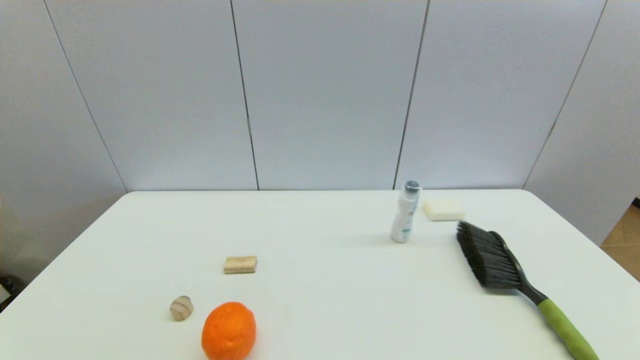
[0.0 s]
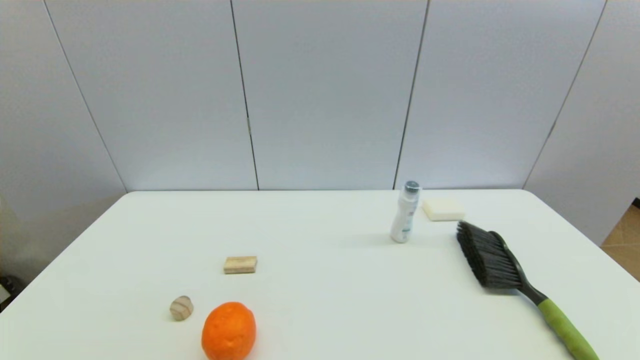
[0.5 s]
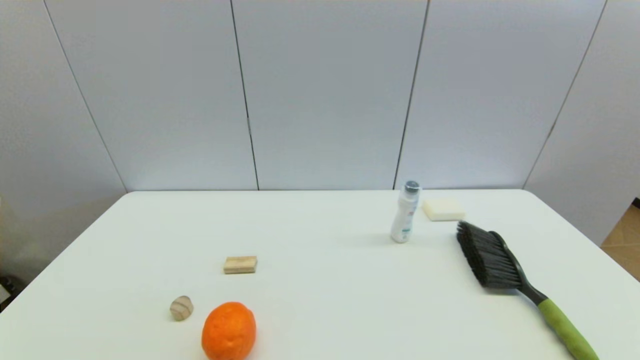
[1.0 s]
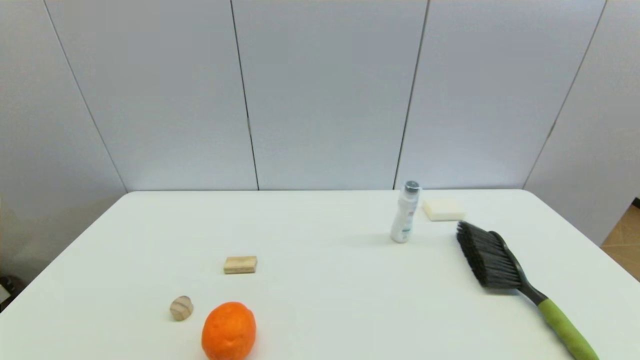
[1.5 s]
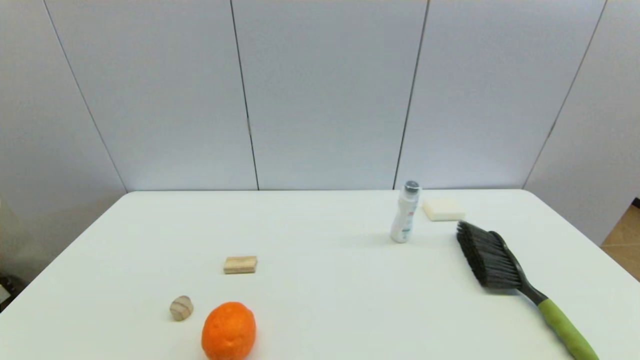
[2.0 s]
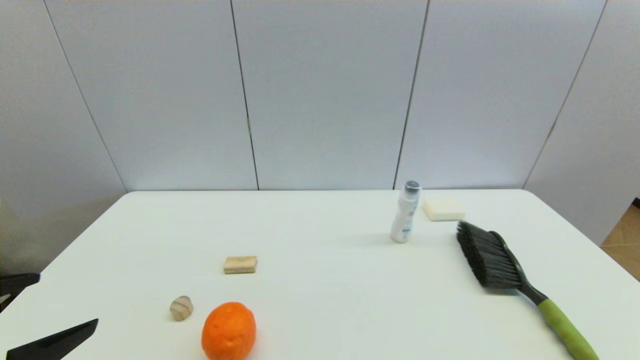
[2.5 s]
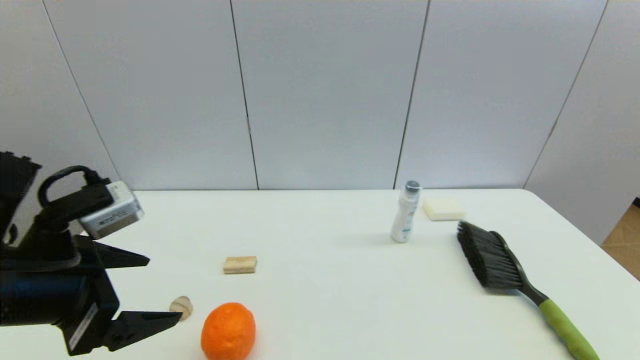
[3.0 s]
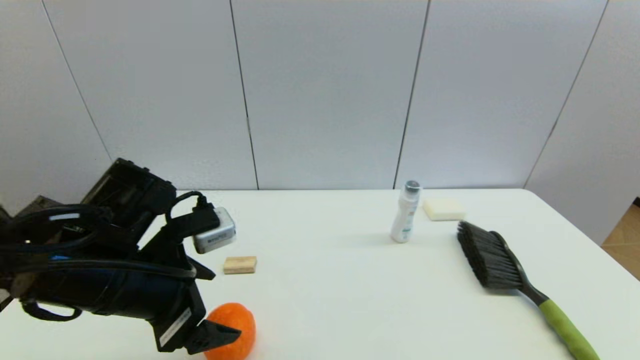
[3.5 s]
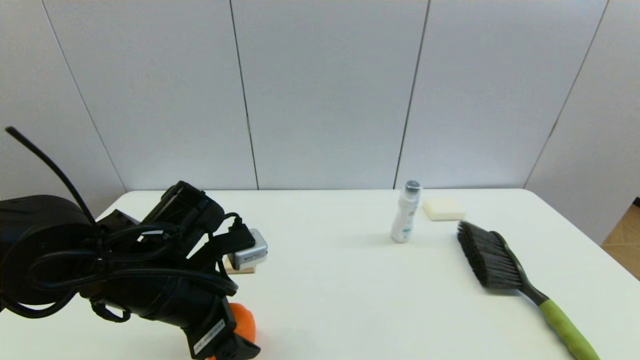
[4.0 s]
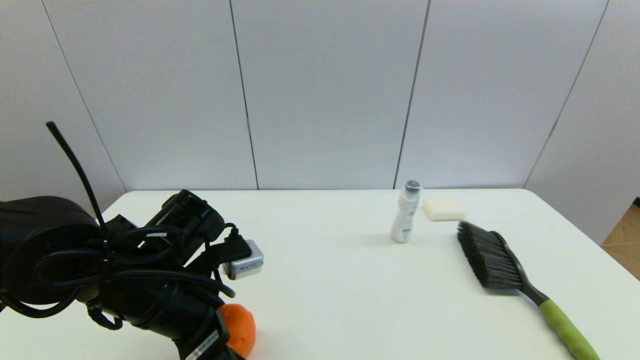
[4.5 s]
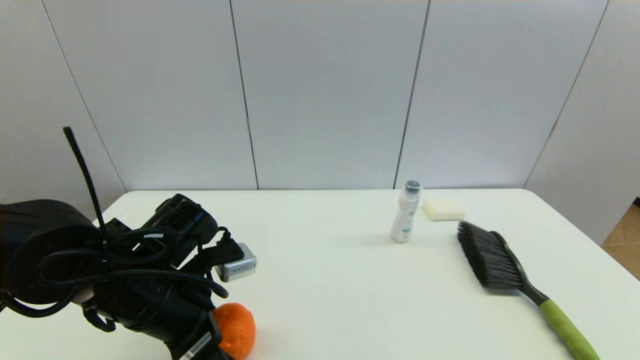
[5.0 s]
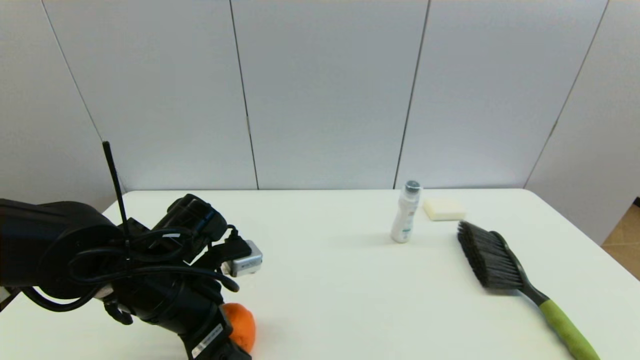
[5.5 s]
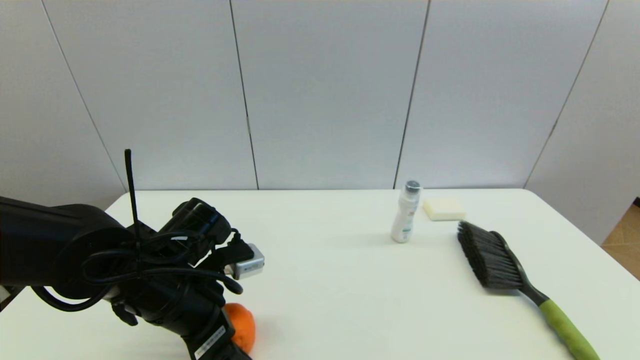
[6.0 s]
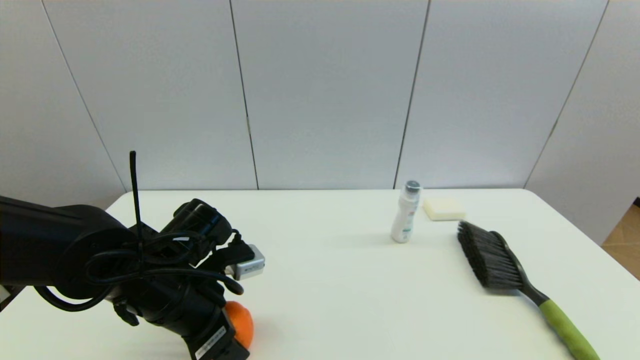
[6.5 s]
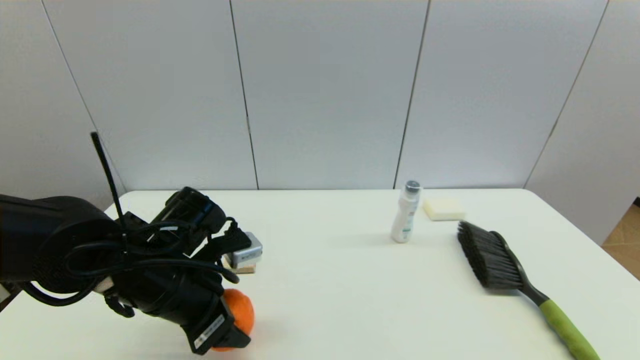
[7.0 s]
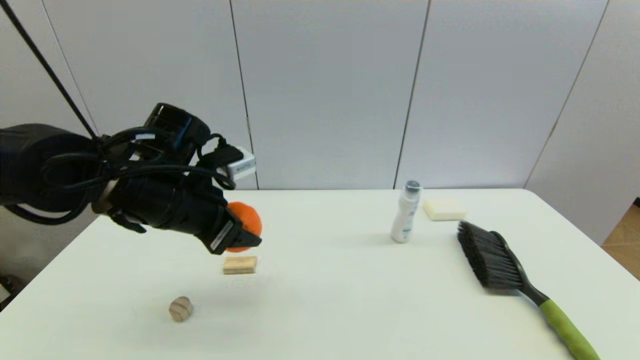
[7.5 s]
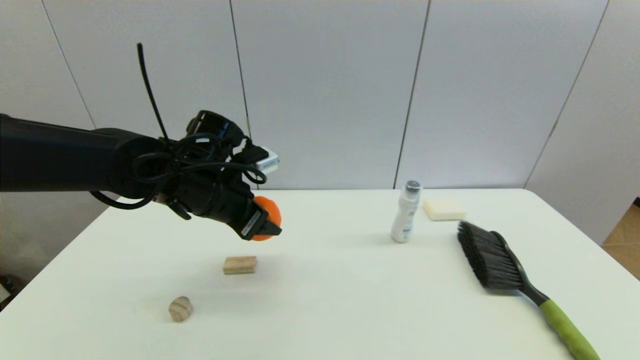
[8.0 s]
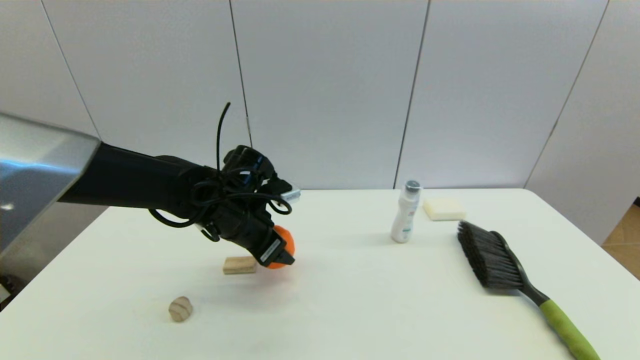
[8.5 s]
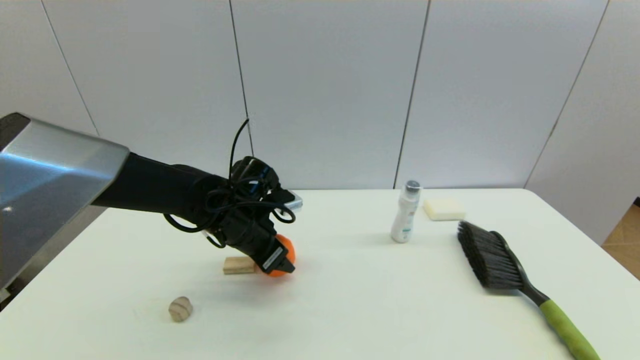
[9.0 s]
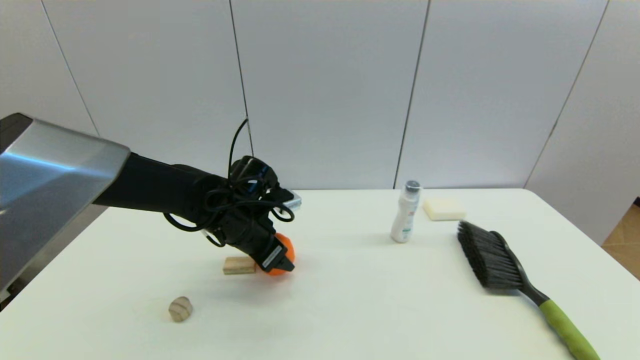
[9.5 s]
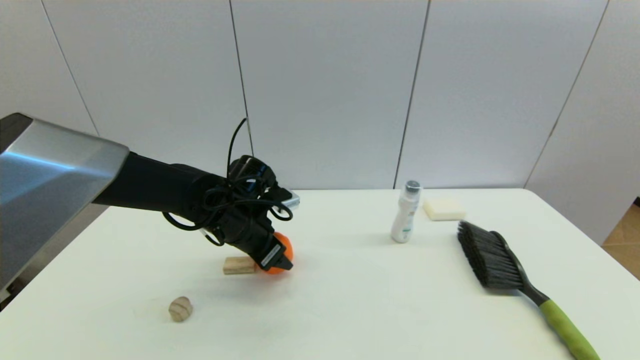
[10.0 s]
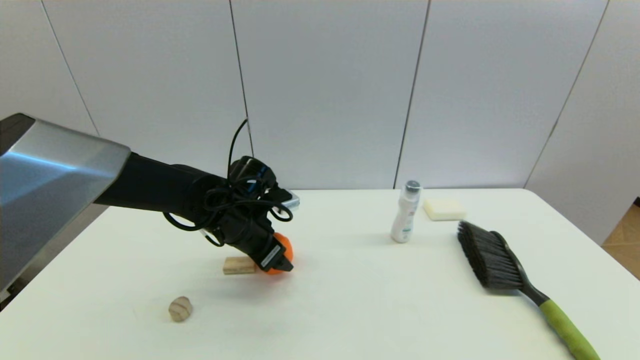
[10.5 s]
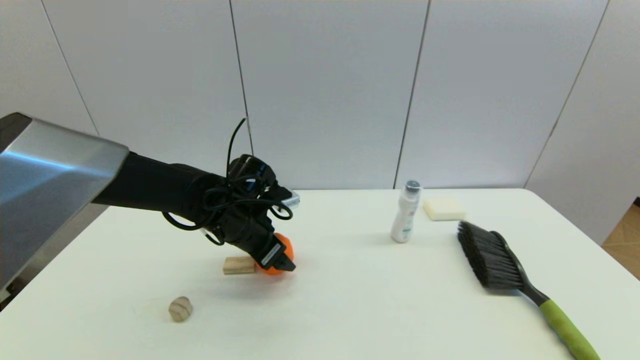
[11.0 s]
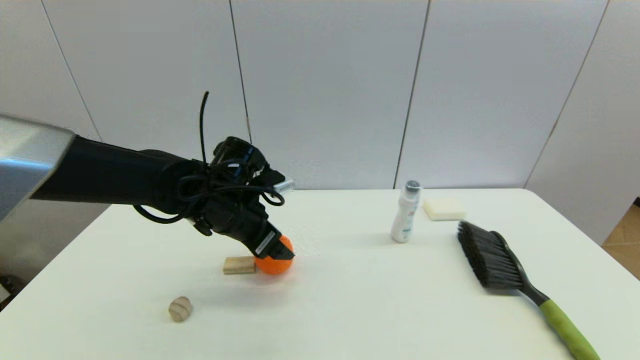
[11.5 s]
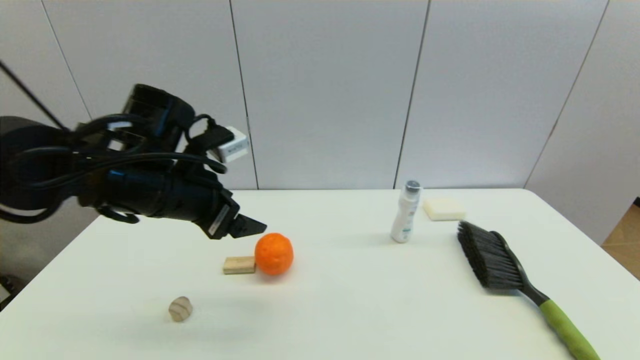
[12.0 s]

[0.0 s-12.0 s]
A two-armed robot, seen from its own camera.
Step, 2.5 to 6.5 s: Grasp the orange with left gripper.
Step, 7.0 to 11.0 s: Place the orange on the table with left gripper.
2.0 to 4.0 s: The left gripper shifts approximately 25 cm forward and to the right.
4.0 to 6.0 s: The grippers stay close to where they were, moving slightly.
6.0 to 8.0 s: The left gripper heads forward and upward, covering some 10 cm, and closes its fingers.
8.0 to 10.0 s: The left gripper is displaced downward by some 5 cm.
10.0 to 12.0 s: The left gripper heads upward, backward and to the left, covering approximately 15 cm, and opens up.

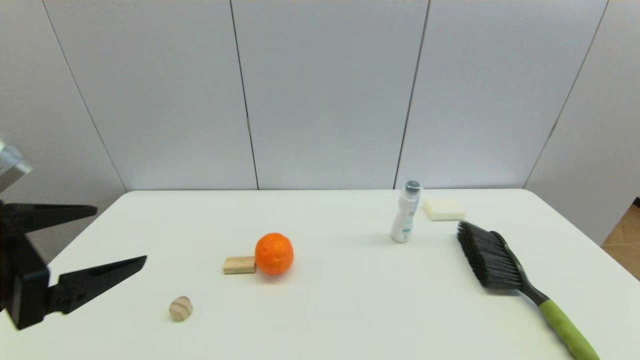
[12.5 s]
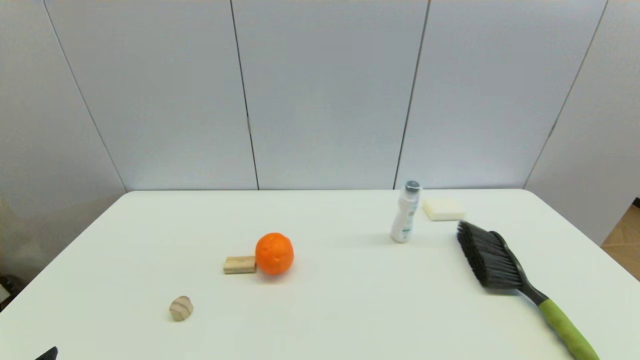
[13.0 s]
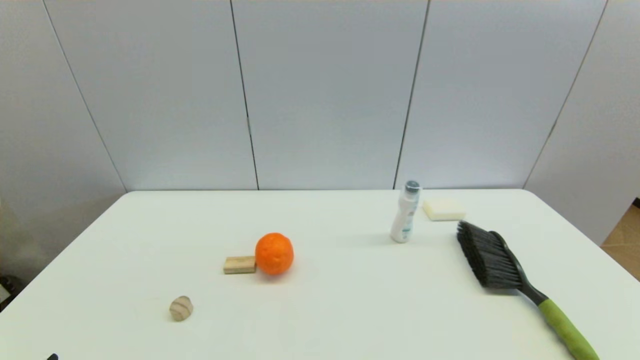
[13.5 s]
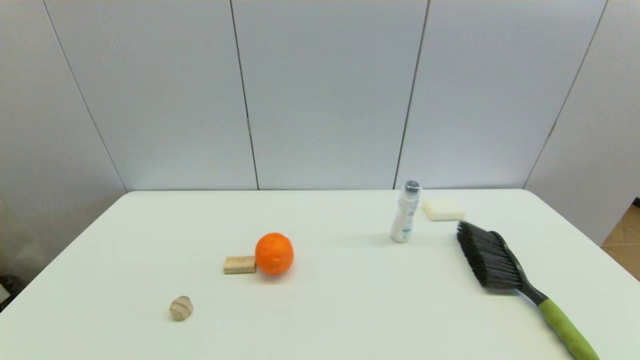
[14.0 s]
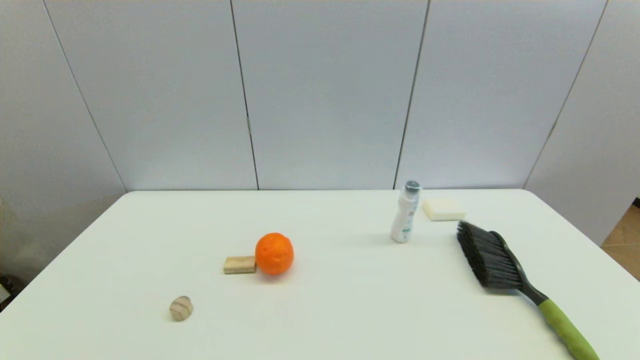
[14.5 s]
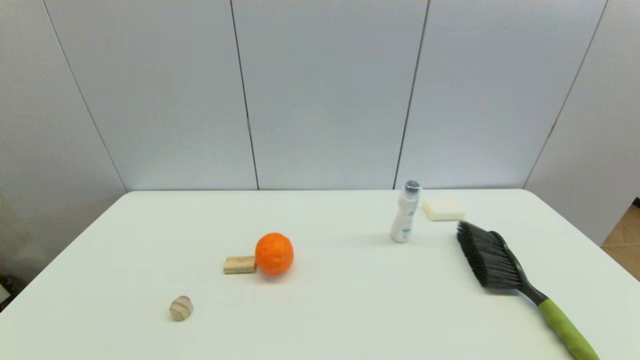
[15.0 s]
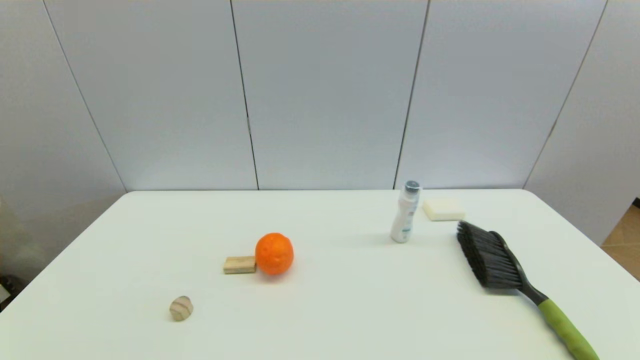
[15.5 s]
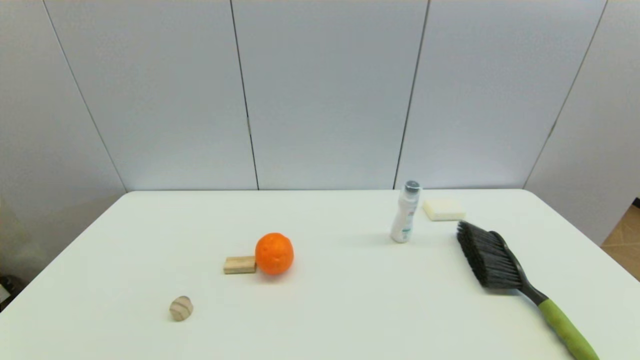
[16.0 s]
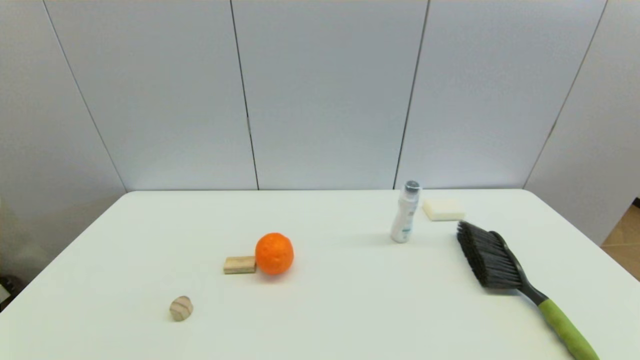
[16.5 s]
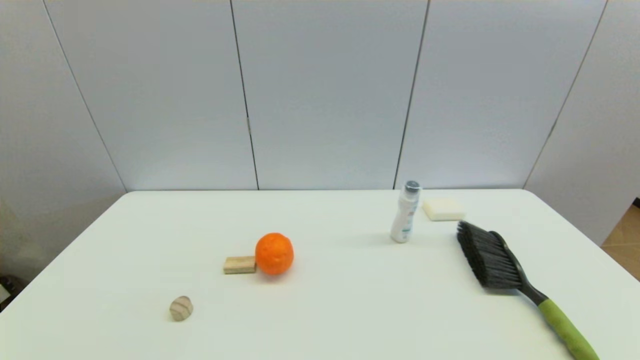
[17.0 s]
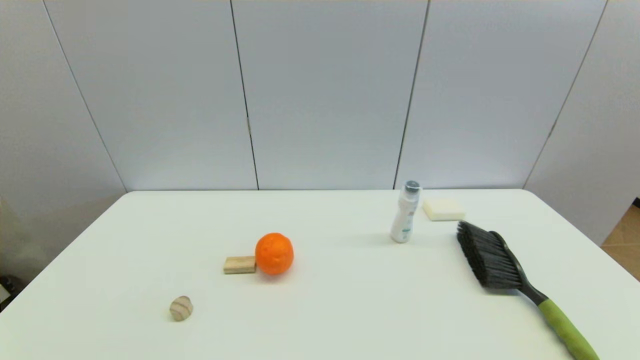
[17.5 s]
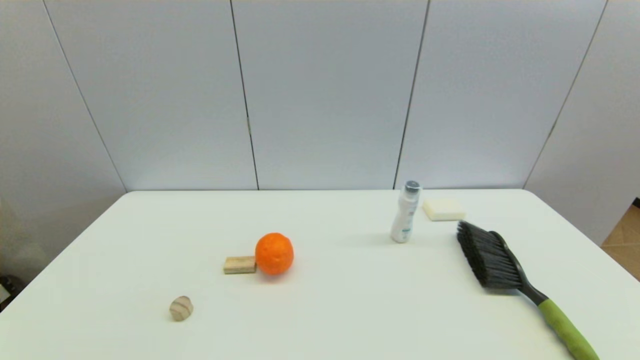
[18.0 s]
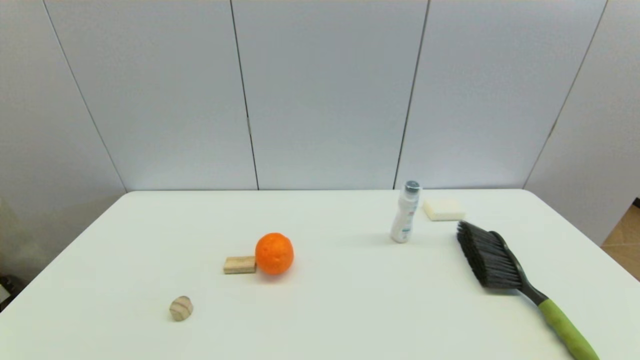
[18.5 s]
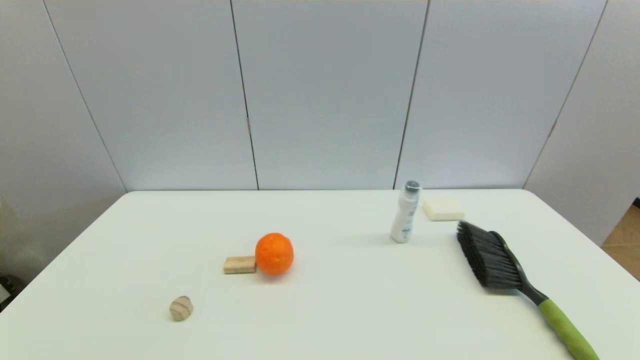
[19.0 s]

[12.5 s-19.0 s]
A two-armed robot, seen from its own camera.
12.5 to 14.5 s: The left gripper is displaced downward and backward by roughly 20 cm.
17.0 to 19.0 s: Both grippers stay put.

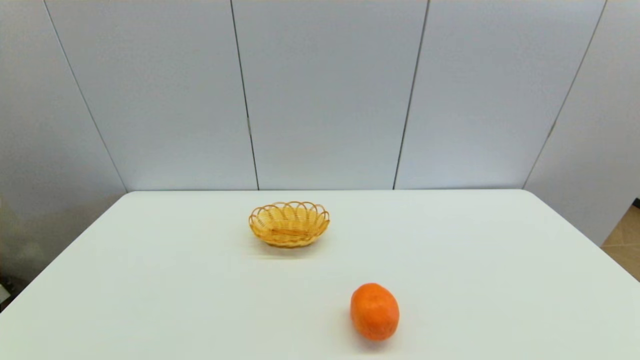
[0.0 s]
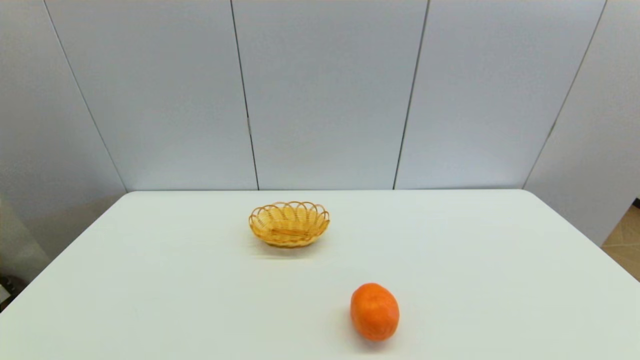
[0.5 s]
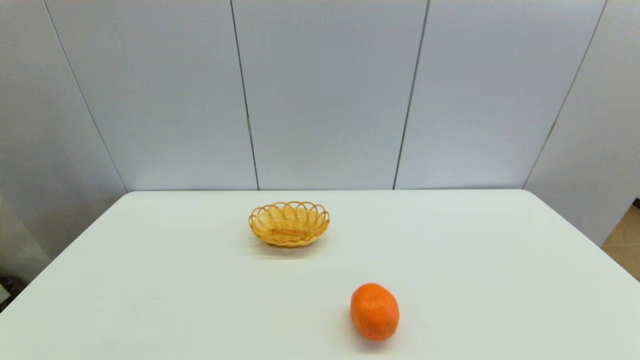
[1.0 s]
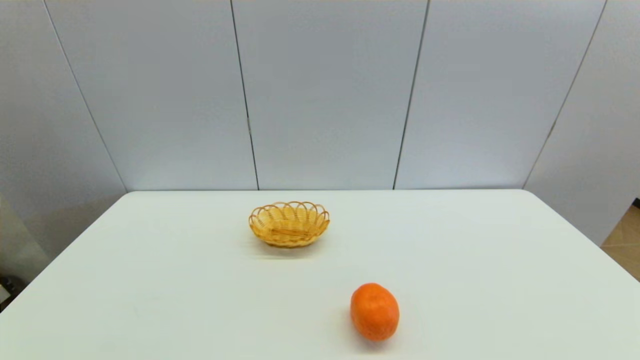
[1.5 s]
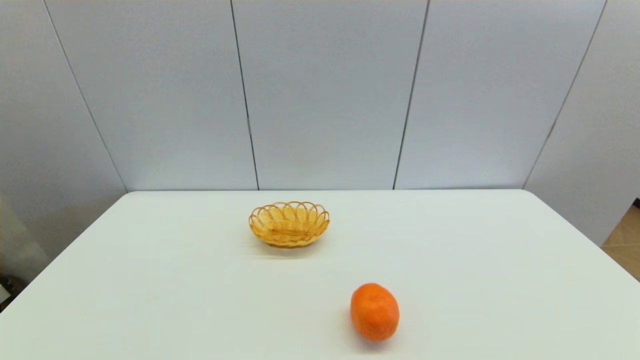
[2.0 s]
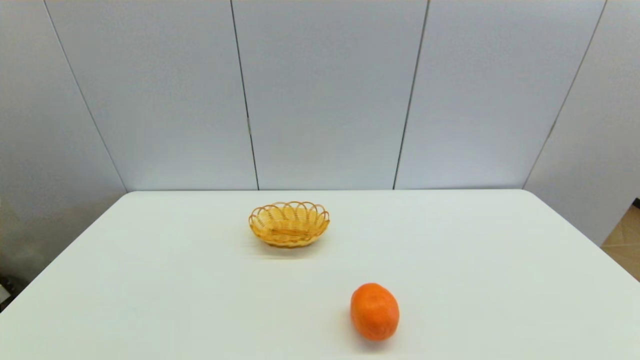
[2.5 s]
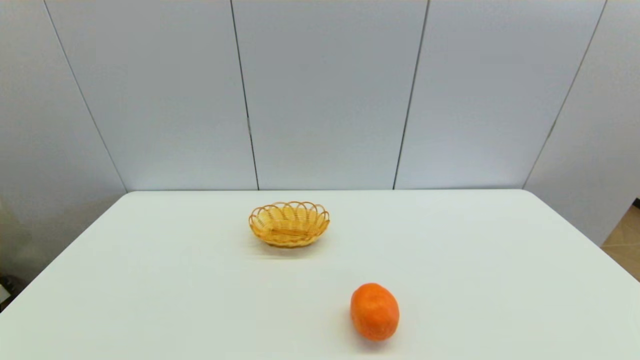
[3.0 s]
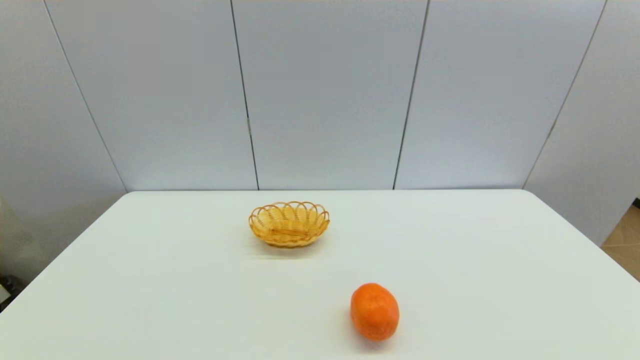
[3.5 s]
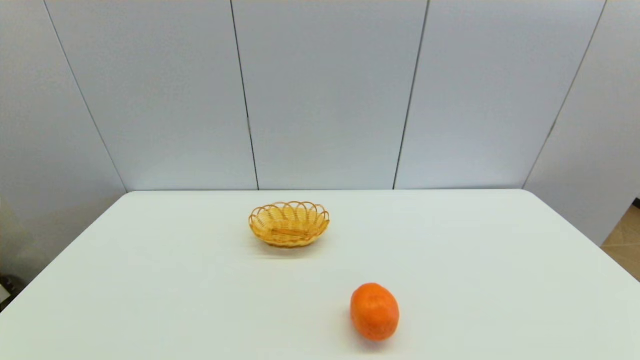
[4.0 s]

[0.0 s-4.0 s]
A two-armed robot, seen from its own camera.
0.0 to 4.0 s: Both grippers stay about where they are.
